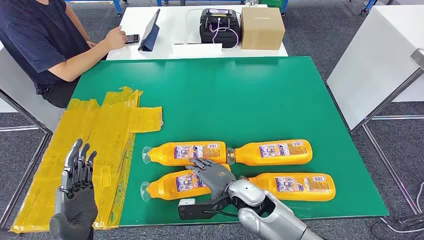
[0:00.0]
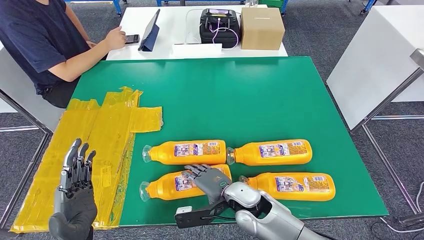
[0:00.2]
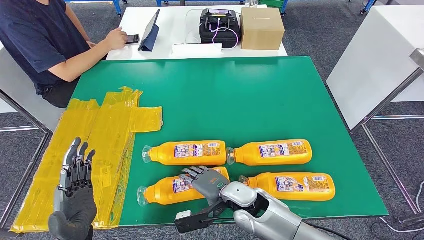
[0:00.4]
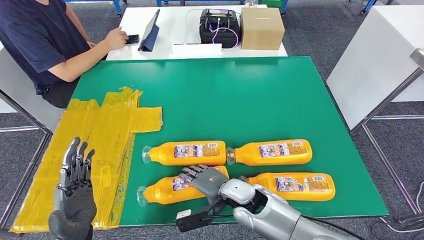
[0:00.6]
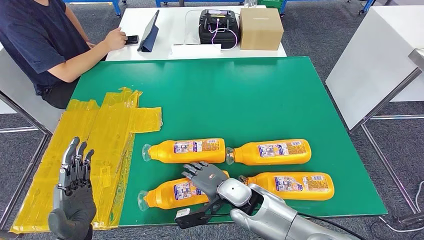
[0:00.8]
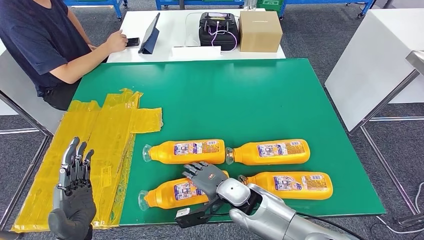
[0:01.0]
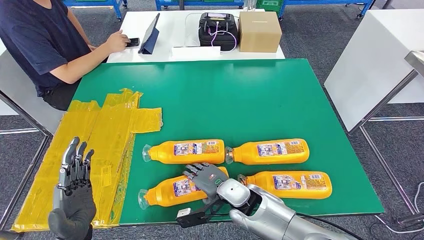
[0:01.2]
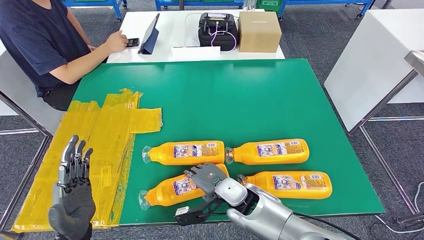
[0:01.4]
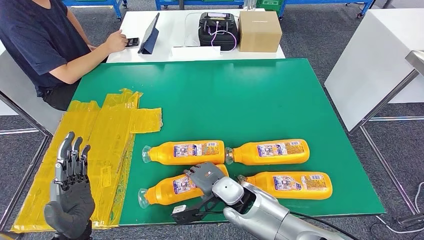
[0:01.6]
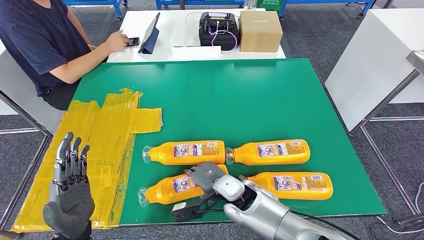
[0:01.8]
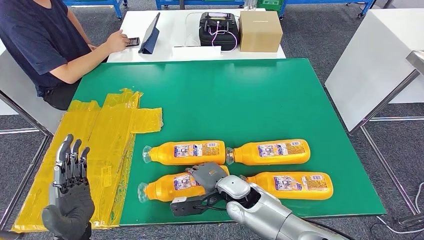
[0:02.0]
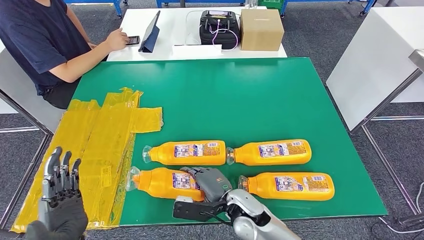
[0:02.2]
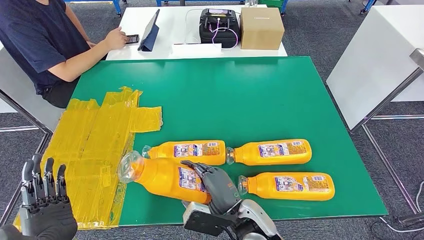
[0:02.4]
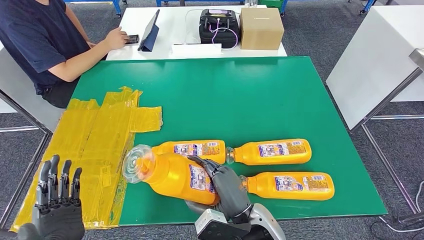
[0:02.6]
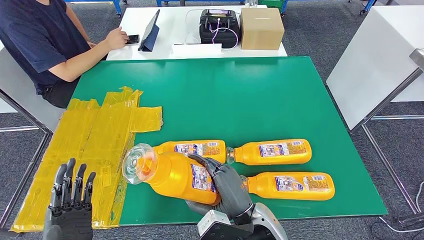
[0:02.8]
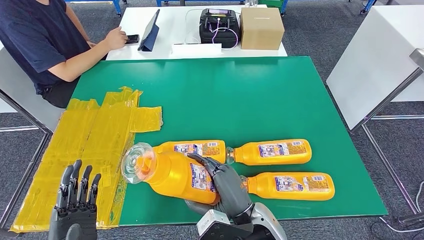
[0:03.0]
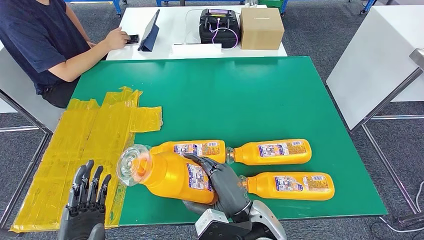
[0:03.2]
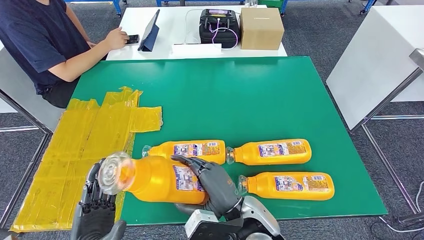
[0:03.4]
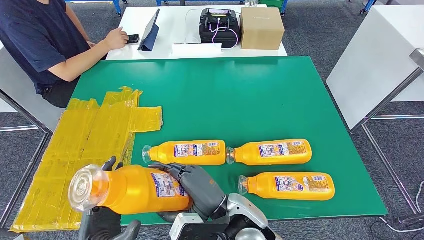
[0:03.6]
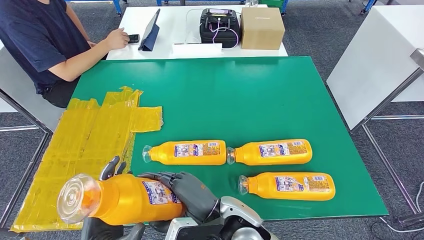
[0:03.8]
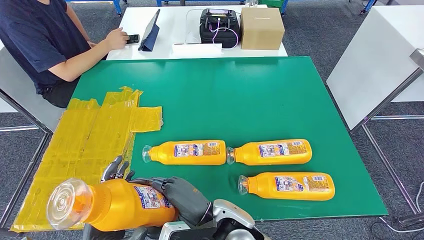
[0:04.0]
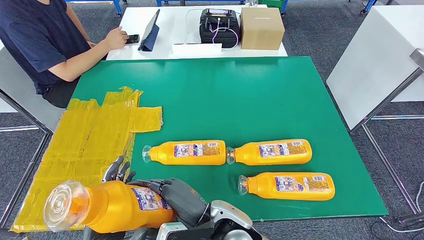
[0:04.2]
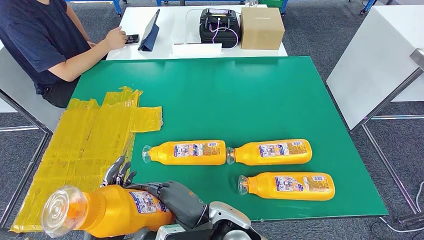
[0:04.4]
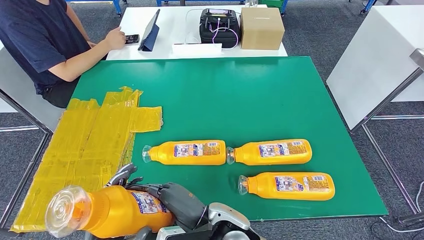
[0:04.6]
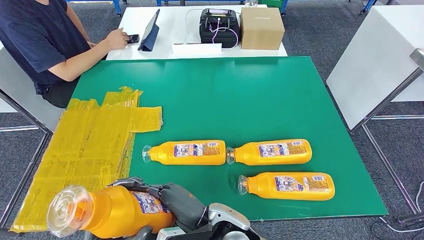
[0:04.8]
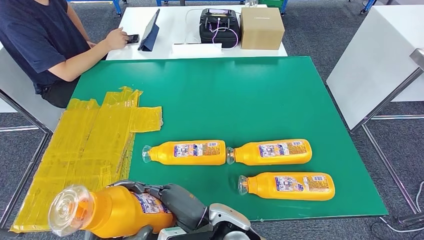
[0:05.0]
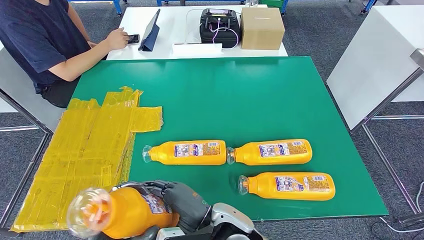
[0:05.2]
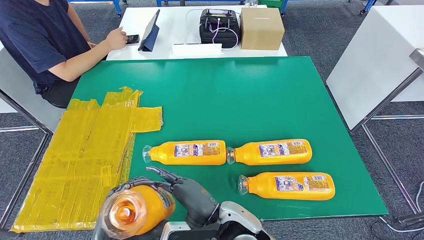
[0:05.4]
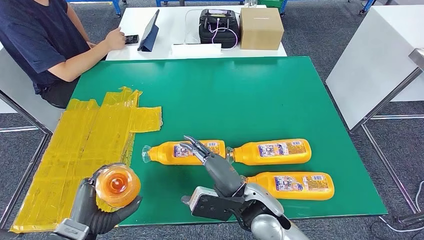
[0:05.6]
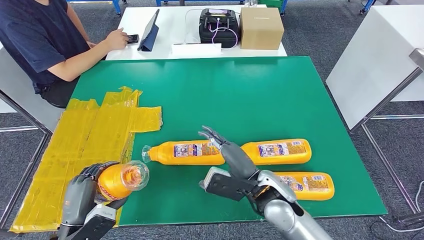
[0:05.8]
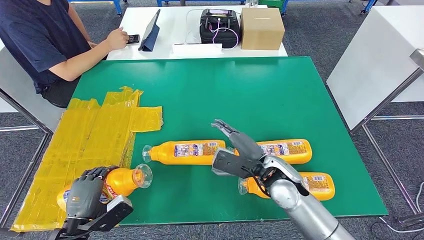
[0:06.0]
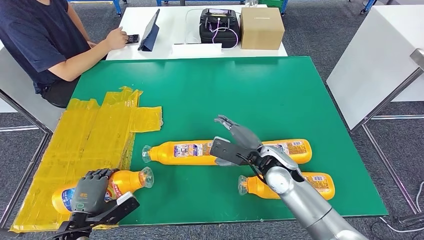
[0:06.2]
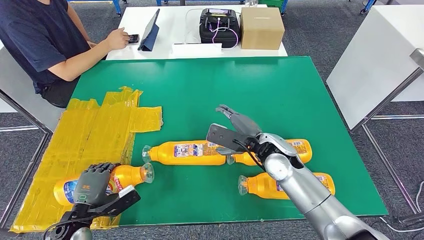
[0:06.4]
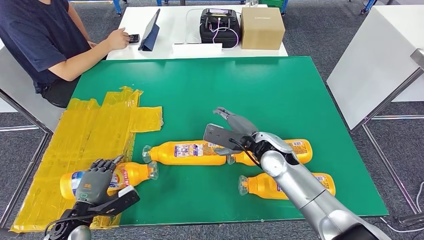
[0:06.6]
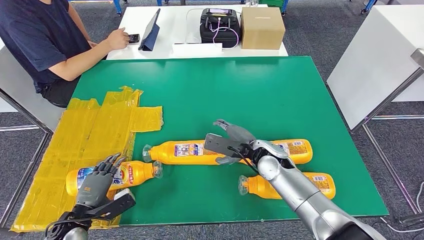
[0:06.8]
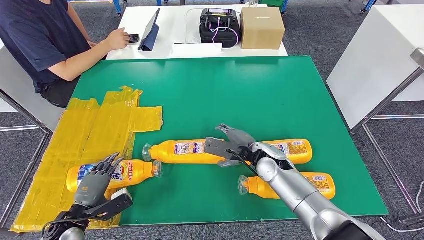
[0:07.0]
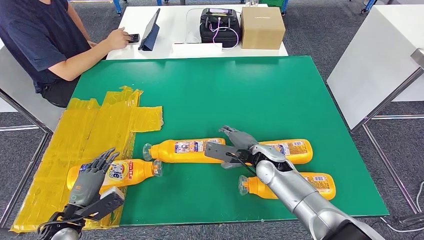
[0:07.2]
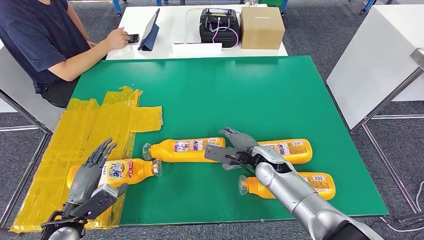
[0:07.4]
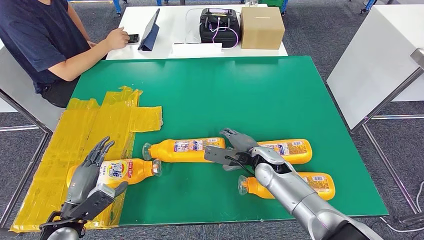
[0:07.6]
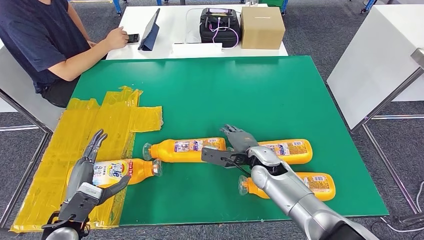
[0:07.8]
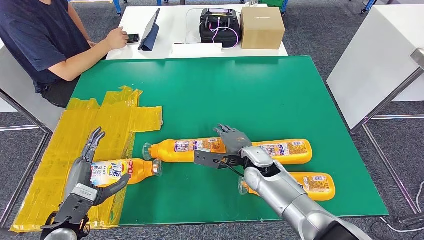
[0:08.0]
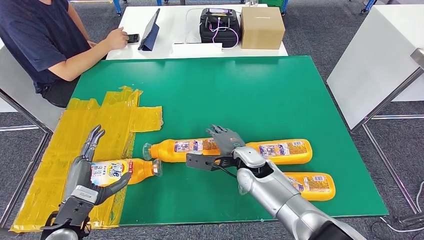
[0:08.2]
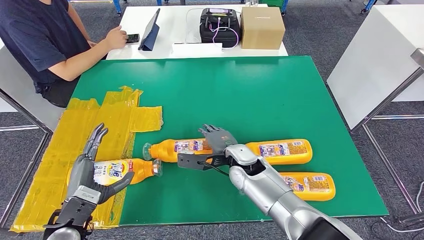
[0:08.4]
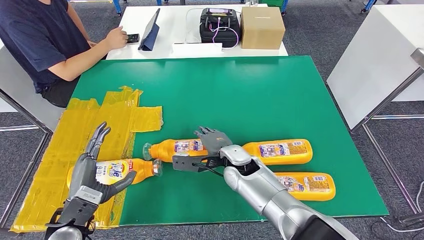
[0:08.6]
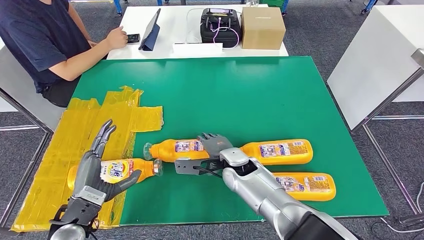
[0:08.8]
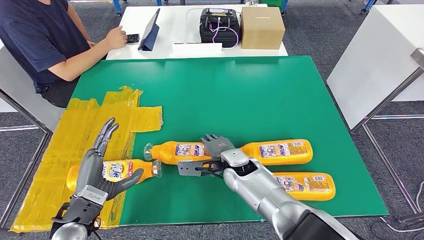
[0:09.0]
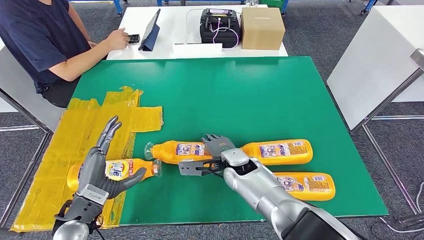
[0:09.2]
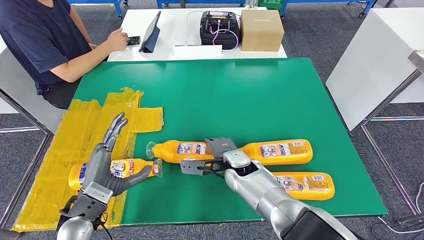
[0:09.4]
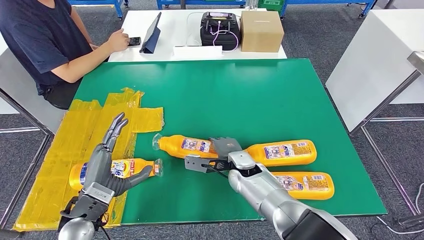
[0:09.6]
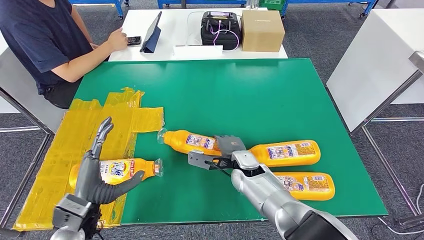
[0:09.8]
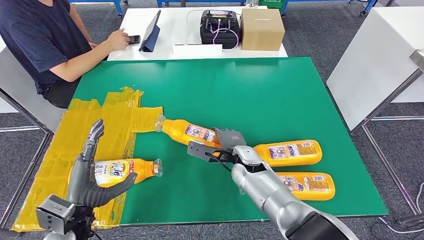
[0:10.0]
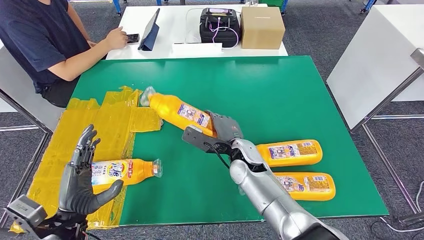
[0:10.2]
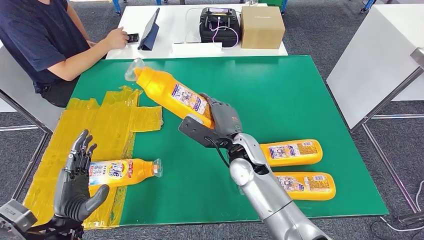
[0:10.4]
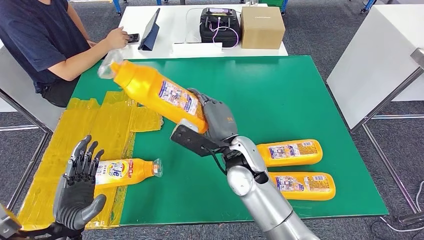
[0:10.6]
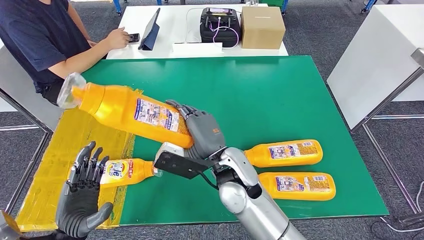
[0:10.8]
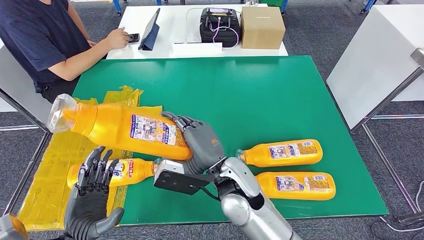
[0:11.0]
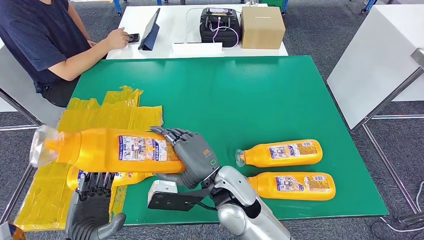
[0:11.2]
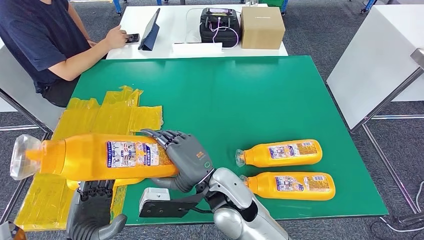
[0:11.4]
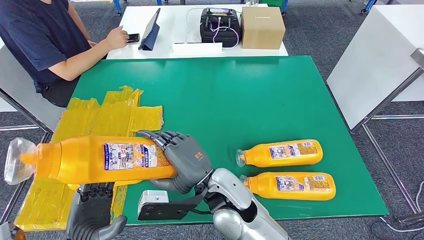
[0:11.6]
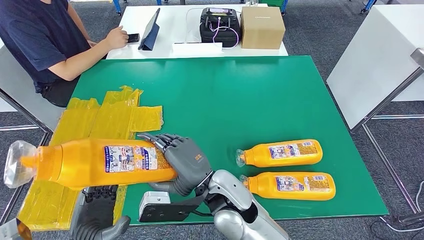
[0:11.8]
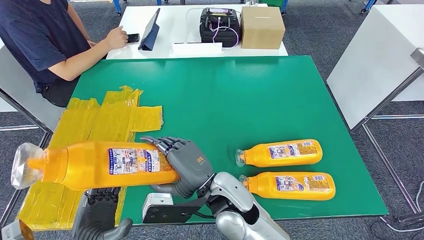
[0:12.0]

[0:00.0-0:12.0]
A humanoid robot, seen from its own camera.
Step, 0:00.0 to 0:03.0: Take the fast-moving consumer goods bottle from the table.
Step, 0:03.2 to 0:07.6: Flip the fast-moving consumer goods bottle to the front side.
0:03.0 to 0:04.4: The right hand goes approximately 5 cm to the left.
0:04.4 to 0:06.0: The left hand heads to the left, forward and downward, covering some 15 cm. Meanwhile the right hand moves to the right and forward, some 15 cm.
0:06.0 to 0:07.6: The right hand is displaced forward and downward by roughly 10 cm.
0:07.6 to 0:09.0: The left hand is displaced to the right by about 5 cm, while the right hand shifts about 10 cm to the left.
0:09.0 to 0:10.4: The right hand travels upward by approximately 10 cm.

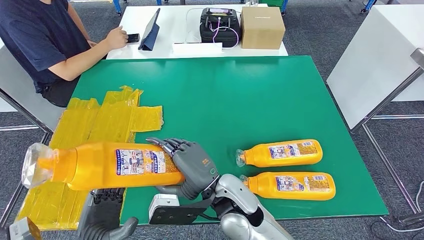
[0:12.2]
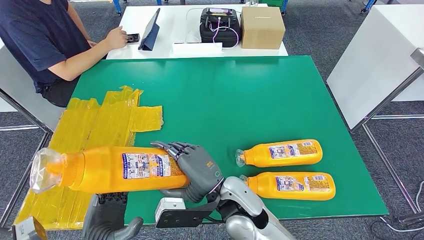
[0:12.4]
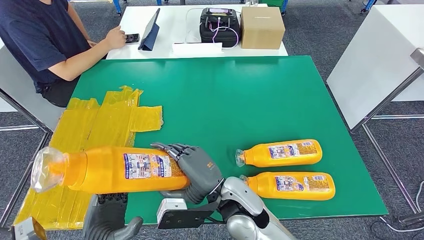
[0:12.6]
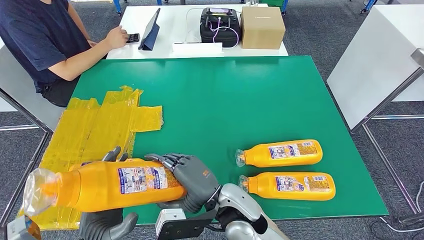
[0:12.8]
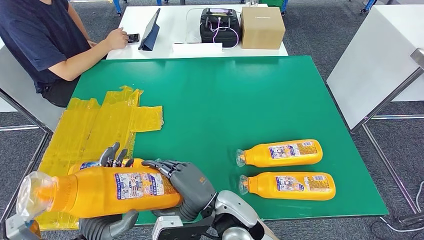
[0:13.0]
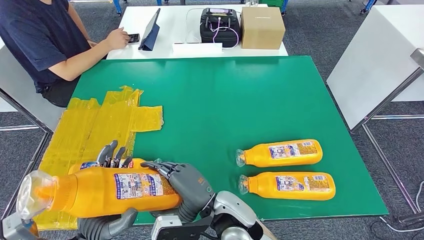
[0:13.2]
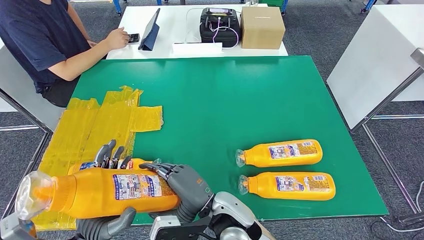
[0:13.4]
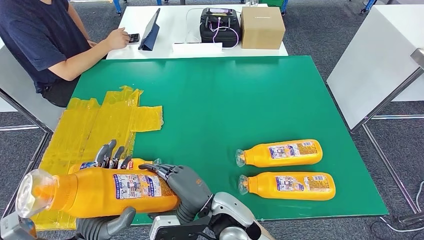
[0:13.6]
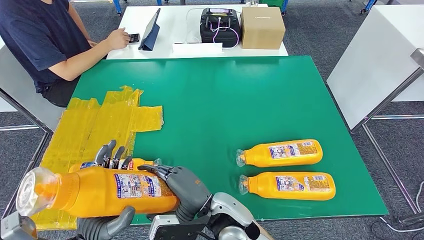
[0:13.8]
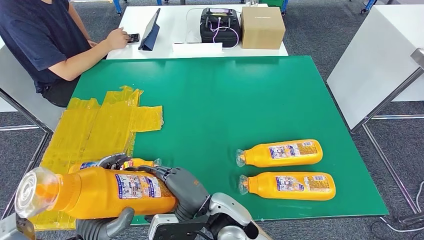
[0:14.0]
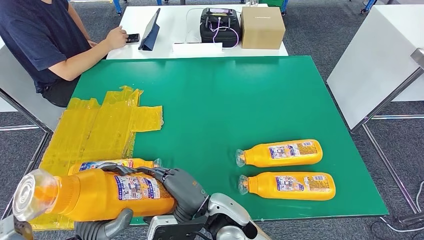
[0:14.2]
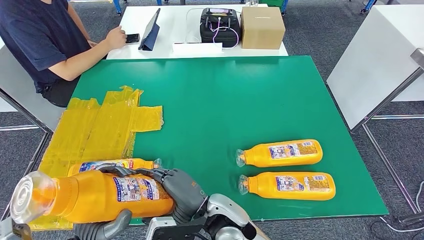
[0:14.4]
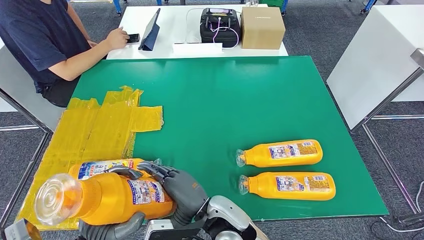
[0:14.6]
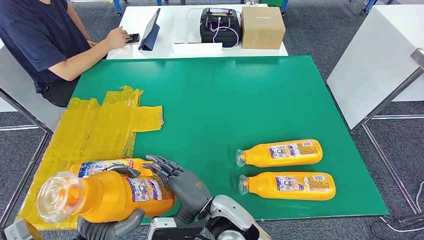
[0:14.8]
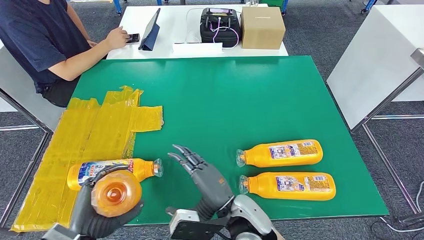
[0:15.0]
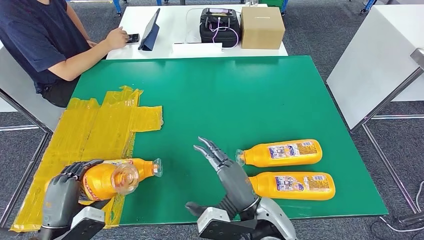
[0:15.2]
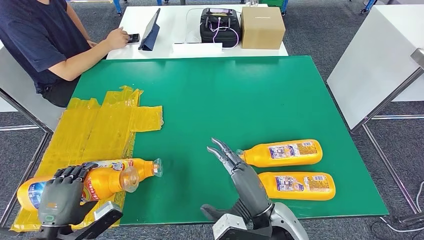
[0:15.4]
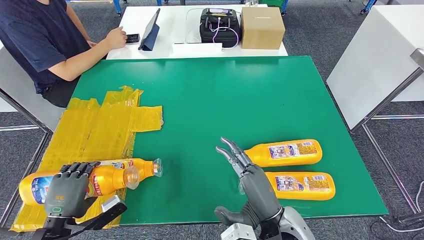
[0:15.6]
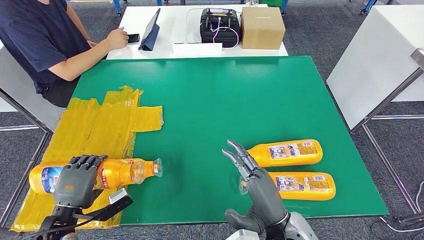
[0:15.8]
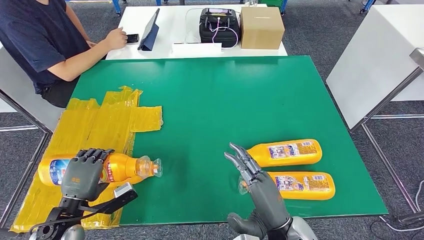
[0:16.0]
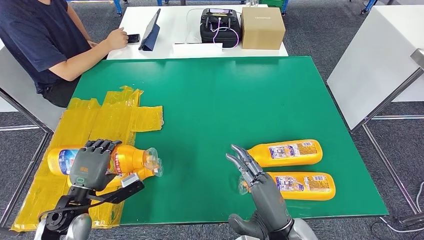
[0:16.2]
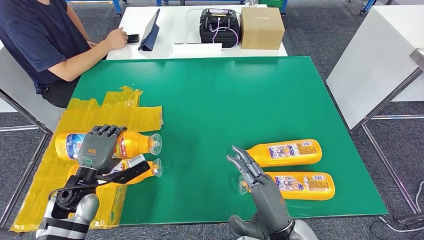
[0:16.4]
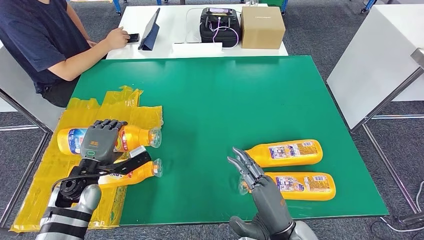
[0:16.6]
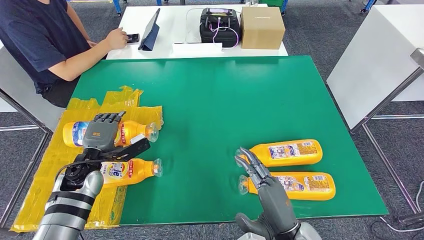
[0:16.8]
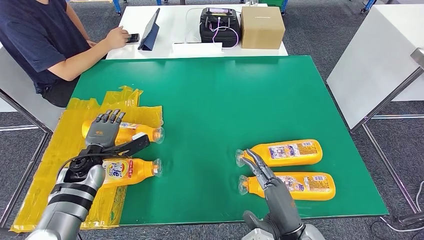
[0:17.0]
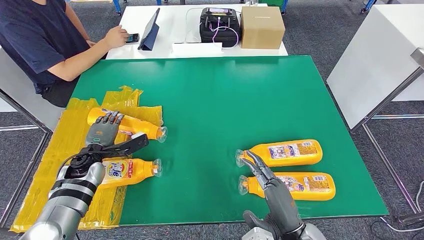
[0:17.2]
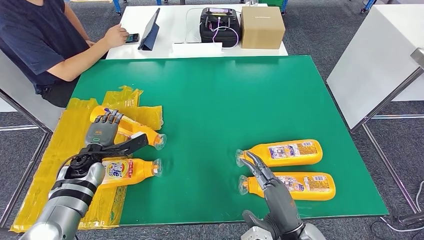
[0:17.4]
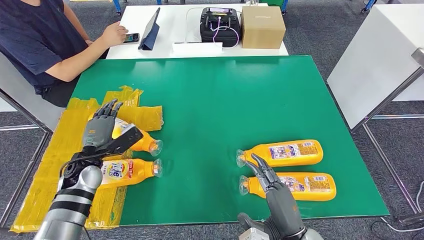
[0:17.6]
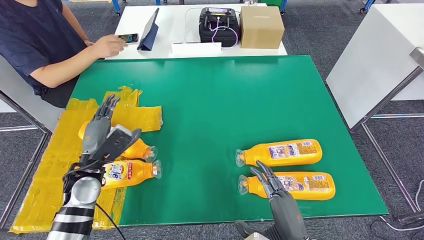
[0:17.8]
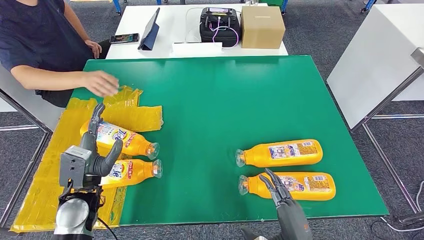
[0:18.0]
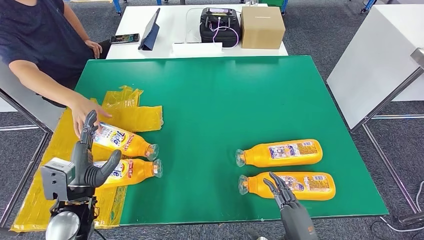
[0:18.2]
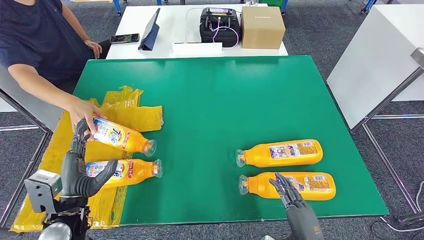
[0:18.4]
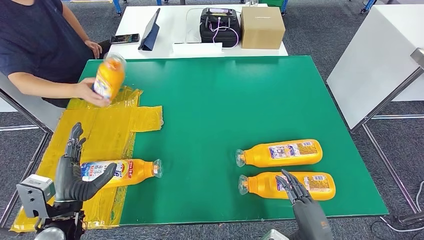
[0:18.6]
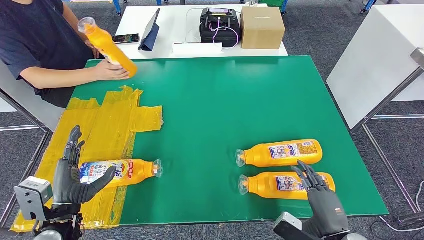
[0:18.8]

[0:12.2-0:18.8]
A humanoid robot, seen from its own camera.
Step, 0:13.2 to 0:17.2: Flip the fast-moving consumer goods bottle to the front side.
0:12.2 to 0:13.8: The hands stay close to where they were, moving slightly.
0:13.8 to 0:15.4: The left hand goes some 10 cm to the left. The right hand is displaced to the right by about 10 cm.
0:15.4 to 0:17.2: The left hand heads forward, covering roughly 20 cm, while the right hand moves to the right, roughly 5 cm.
0:17.2 to 0:18.8: The left hand shifts about 15 cm backward. The right hand moves to the right, some 10 cm.
